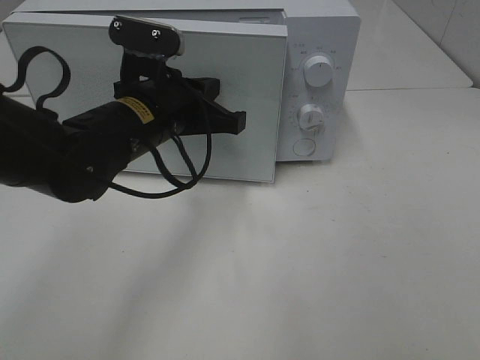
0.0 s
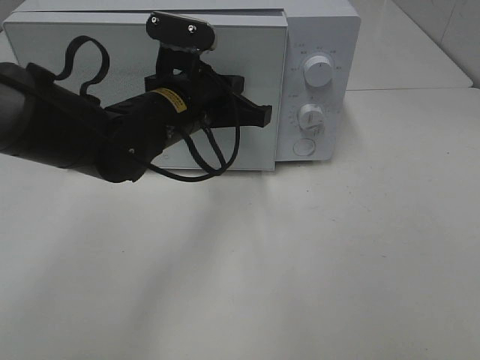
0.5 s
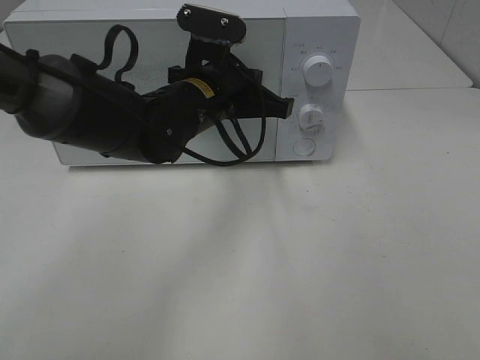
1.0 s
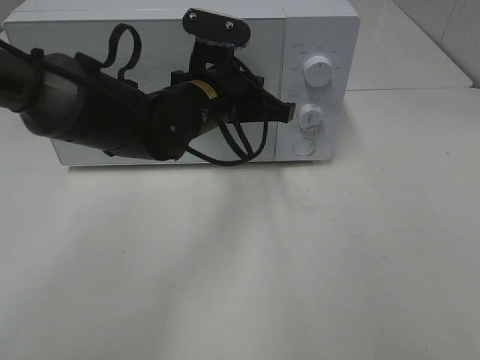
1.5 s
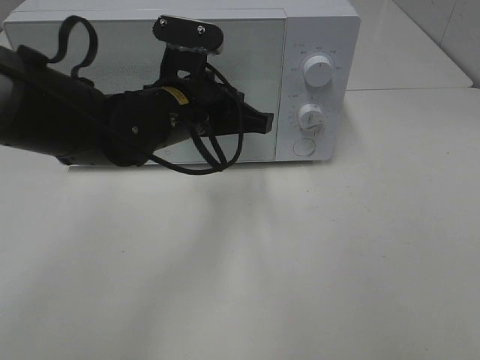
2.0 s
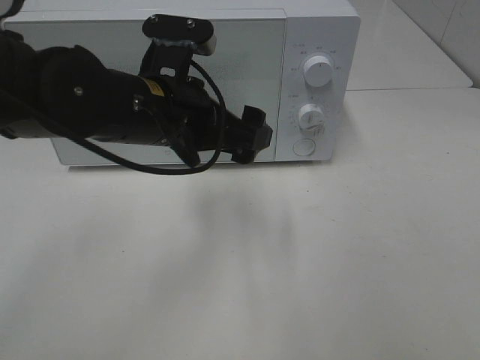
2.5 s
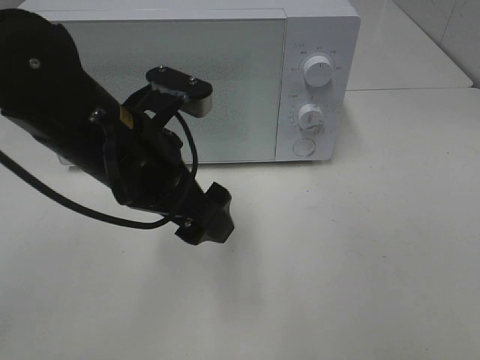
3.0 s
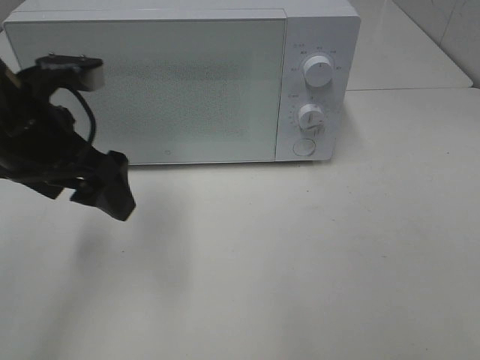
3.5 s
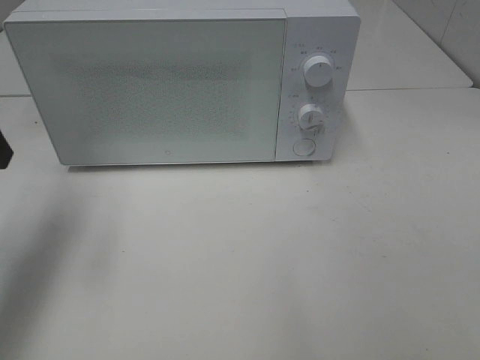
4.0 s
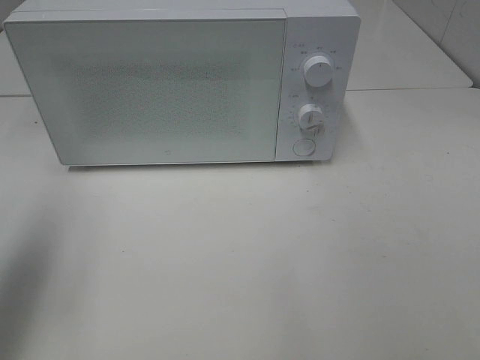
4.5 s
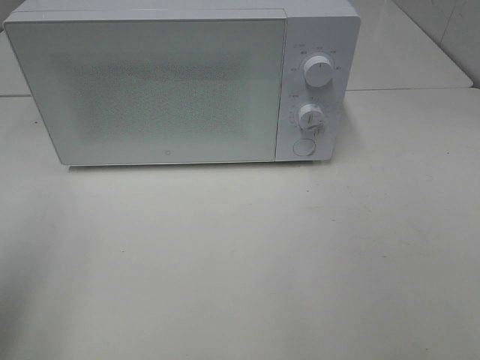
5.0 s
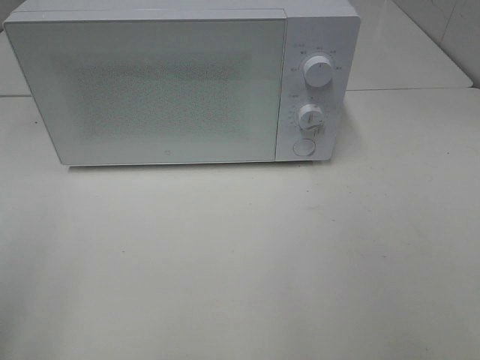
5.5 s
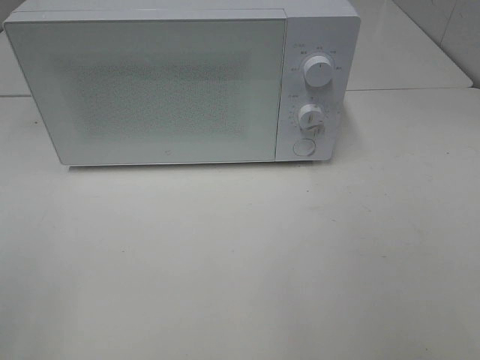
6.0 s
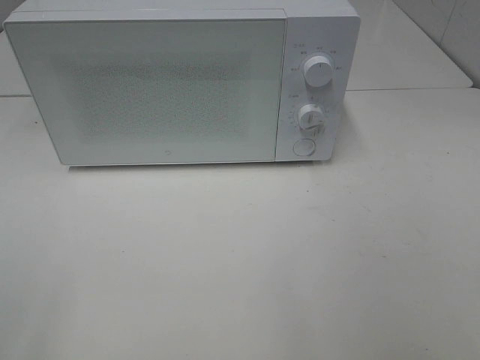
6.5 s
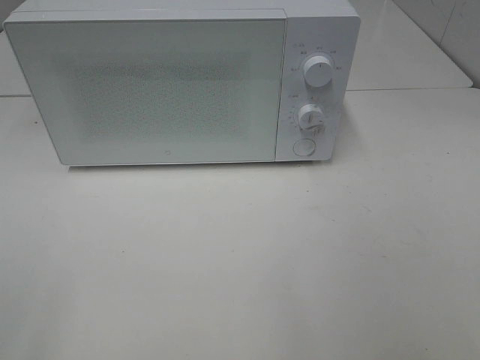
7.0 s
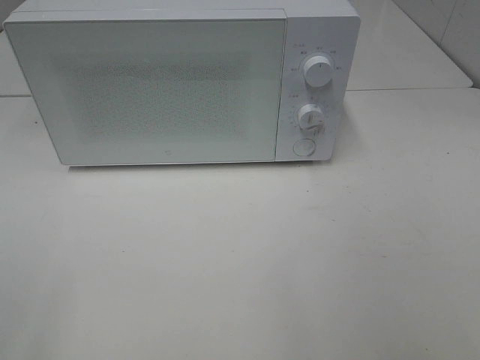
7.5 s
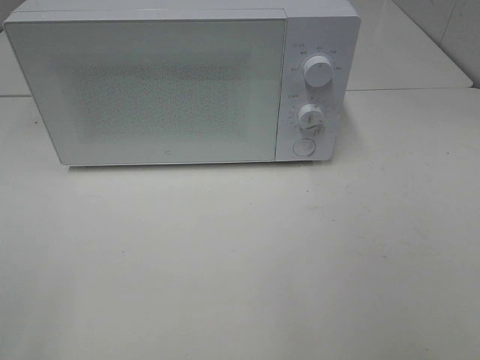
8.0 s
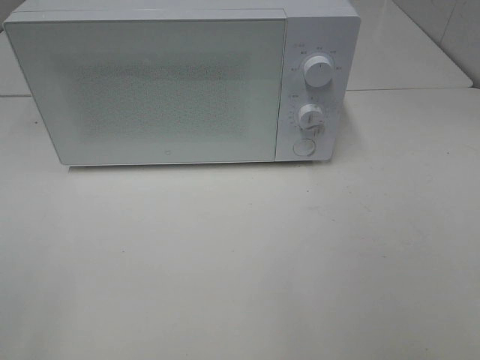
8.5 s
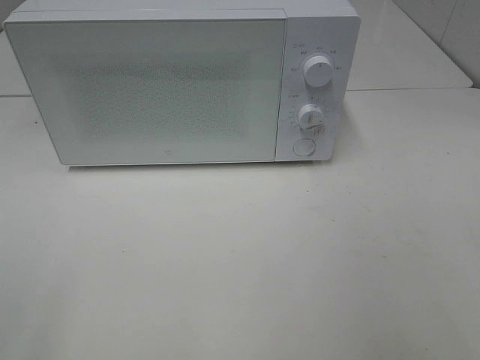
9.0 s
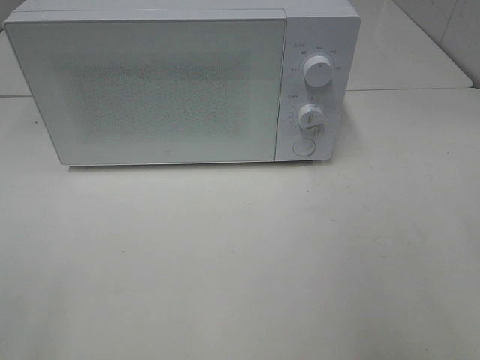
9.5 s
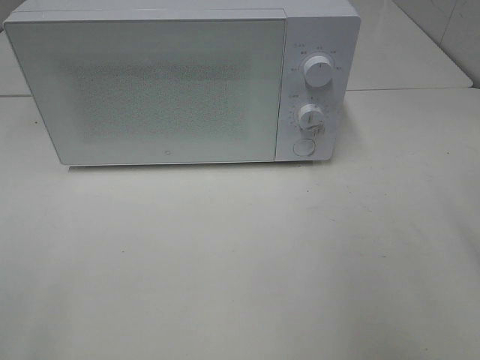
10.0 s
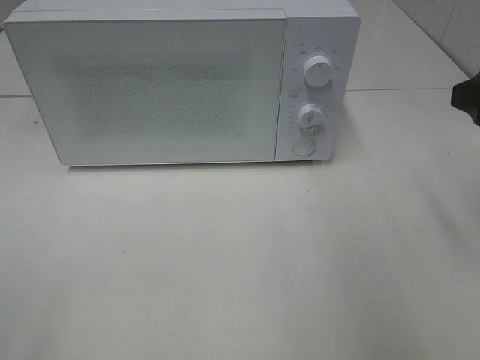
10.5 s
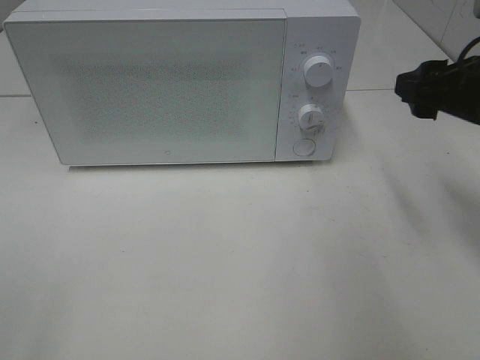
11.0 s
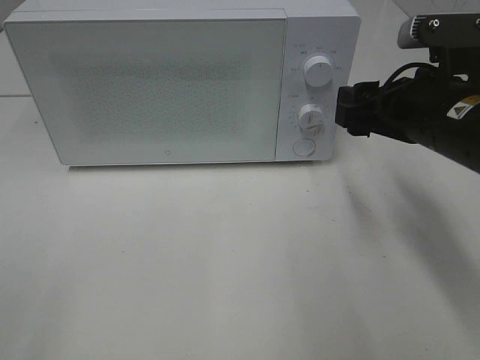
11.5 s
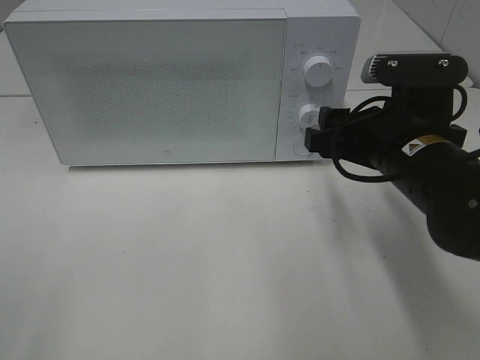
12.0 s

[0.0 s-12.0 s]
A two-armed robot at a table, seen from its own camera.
Task of the whole recording: Heat Sandwich.
Step, 0.0 to 2.0 s: Left hand: close the microwave door.
2.0 to 4.0 s: The left gripper is displaced to the left and upward by some 25 cm, and opens up.
4.0 to 6.0 s: The left gripper moves backward, some 25 cm.
10.0 to 12.0 s: The right gripper moves to the left, downward and forward, roughly 20 cm.

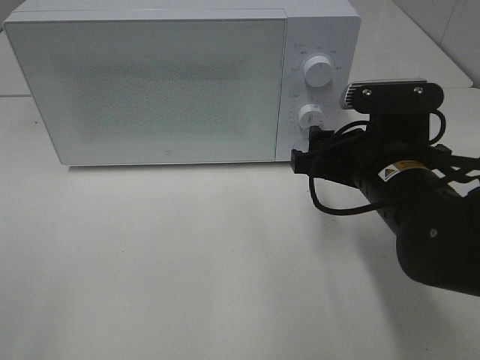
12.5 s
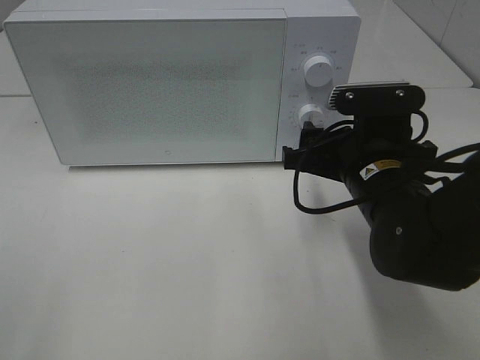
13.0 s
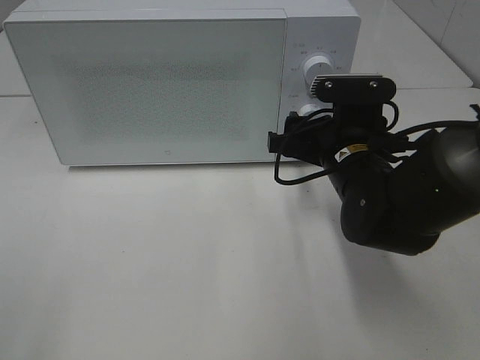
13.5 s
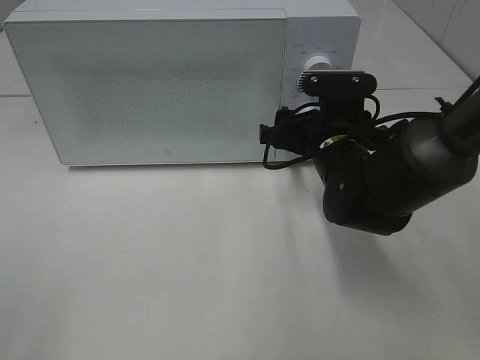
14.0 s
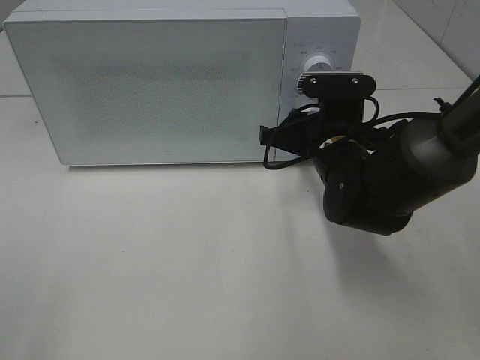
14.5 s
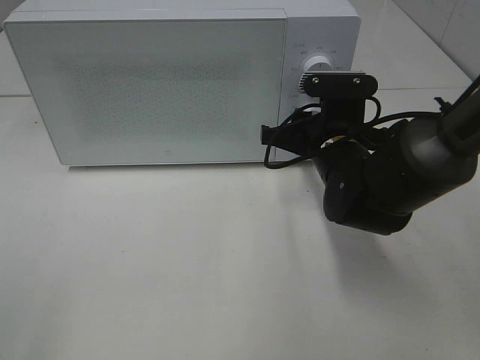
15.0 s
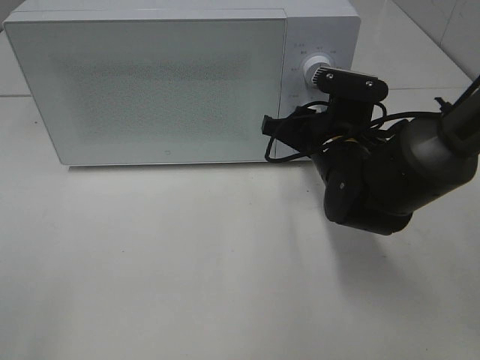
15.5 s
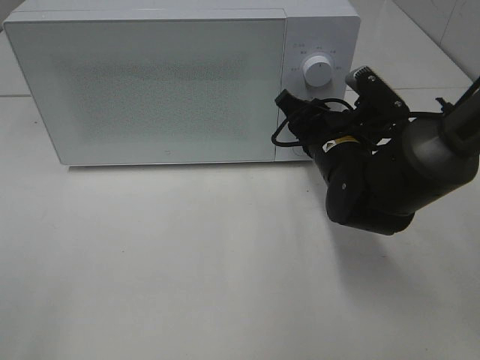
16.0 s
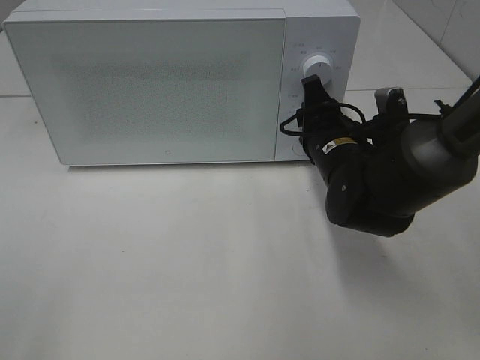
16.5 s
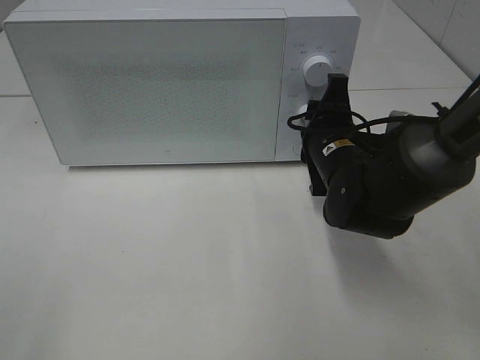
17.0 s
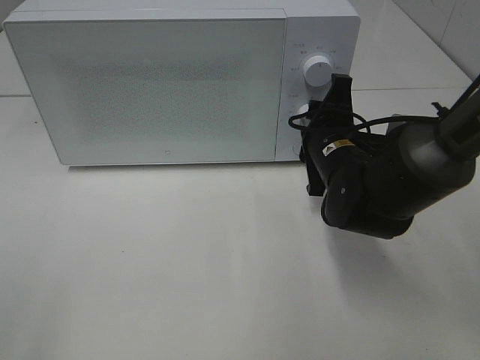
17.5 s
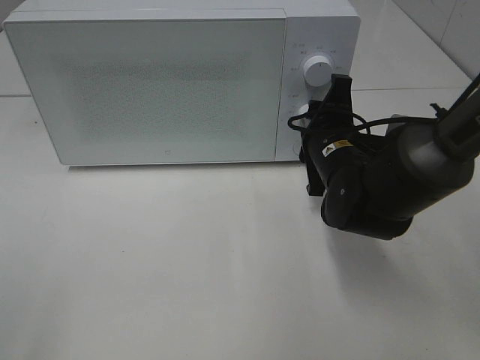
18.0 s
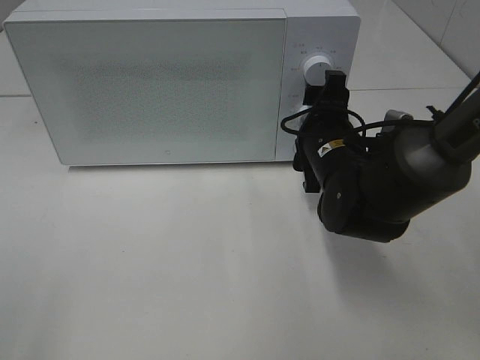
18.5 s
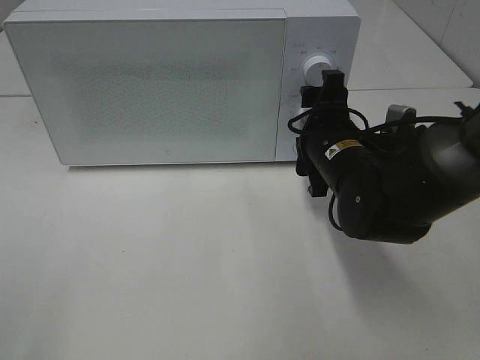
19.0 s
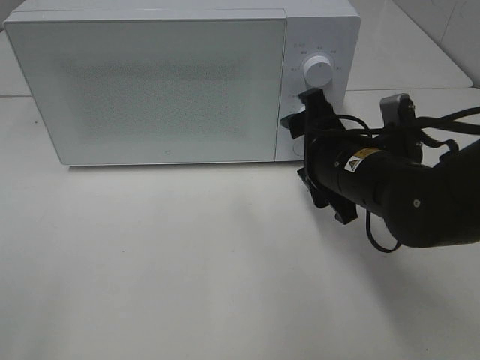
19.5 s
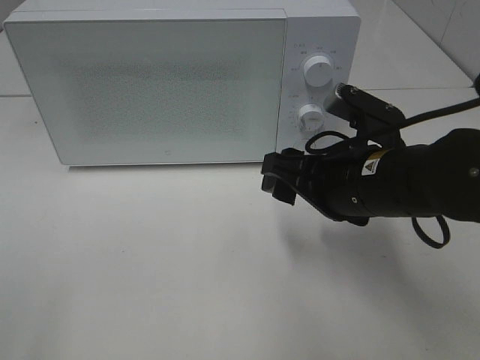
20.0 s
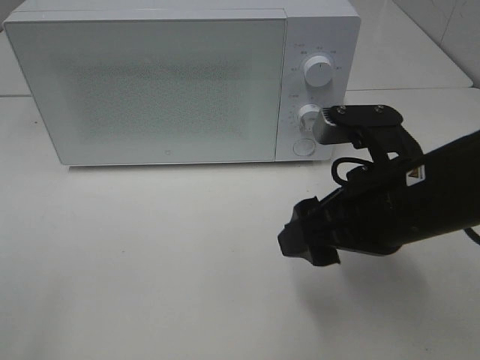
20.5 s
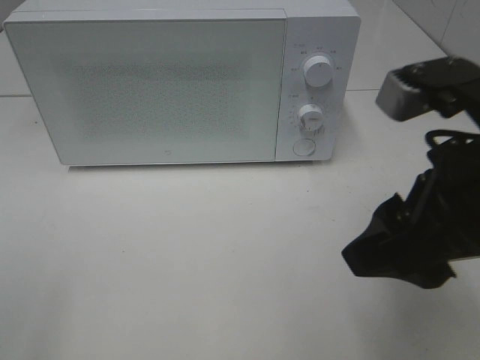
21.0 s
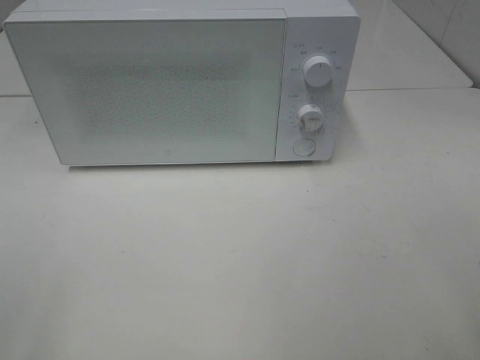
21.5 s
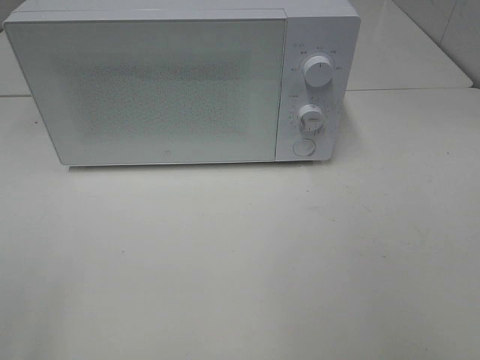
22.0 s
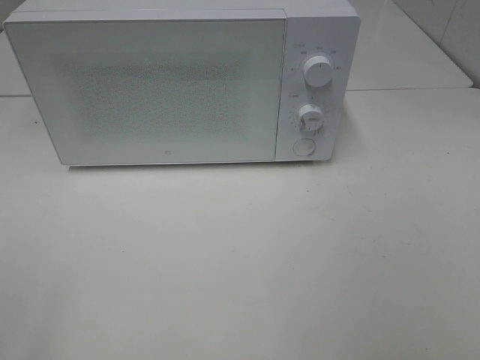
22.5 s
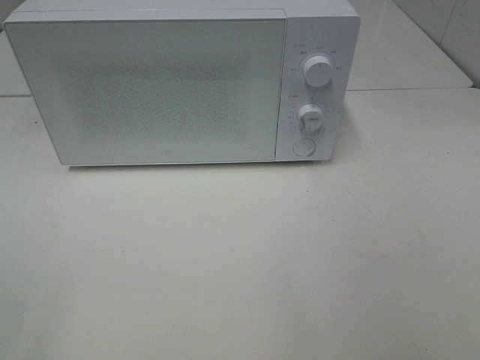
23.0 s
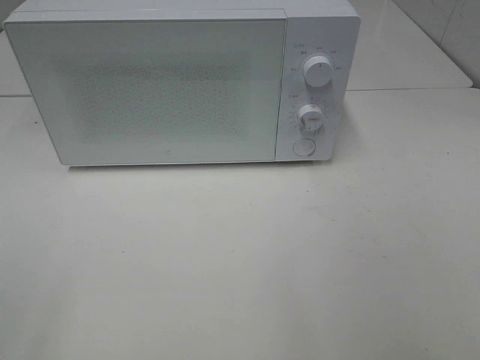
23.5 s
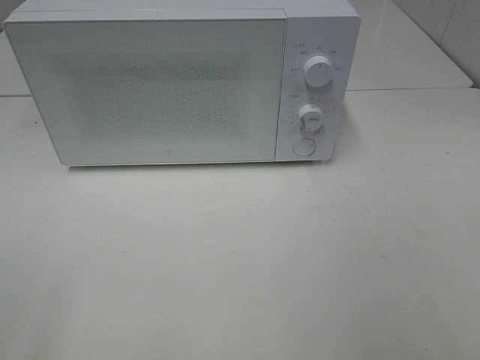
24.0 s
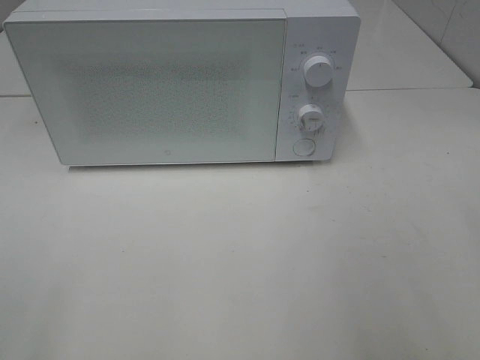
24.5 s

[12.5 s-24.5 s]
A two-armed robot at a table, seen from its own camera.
Task of the whole recording: Heat Sandwich.
Step, 12.5 to 19.0 s: Right hand: twist timer button.
12.5 to 14.5 s: The right gripper moves forward, about 10 cm.
16.5 to 18.5 s: The right gripper opens up.
18.5 to 20.5 s: The right gripper moves backward and upward, about 15 cm.
20.5 to 22.5 s: The right gripper is displaced backward, to the right and upward by roughly 30 cm.

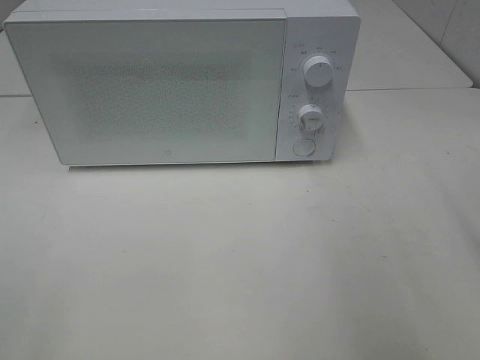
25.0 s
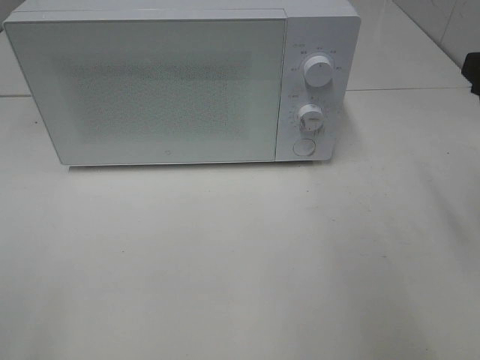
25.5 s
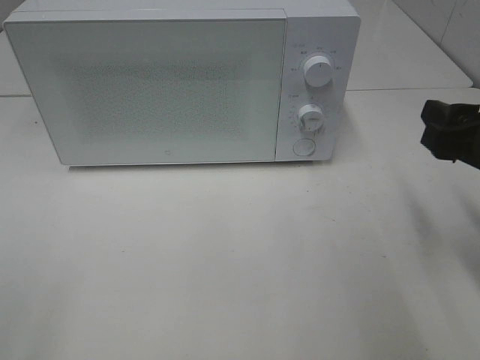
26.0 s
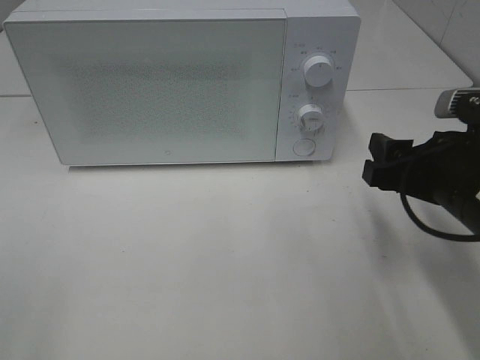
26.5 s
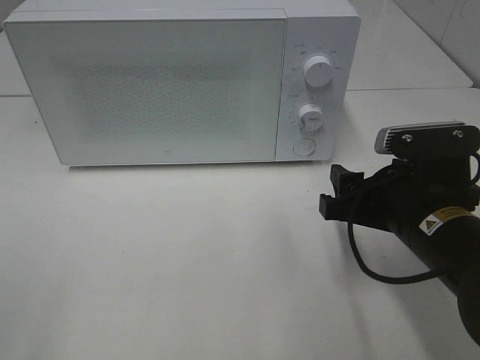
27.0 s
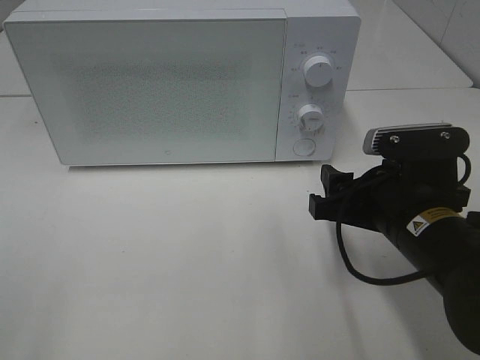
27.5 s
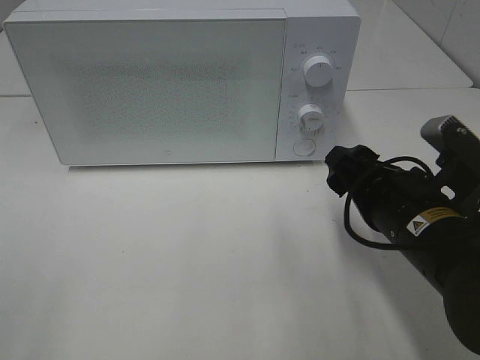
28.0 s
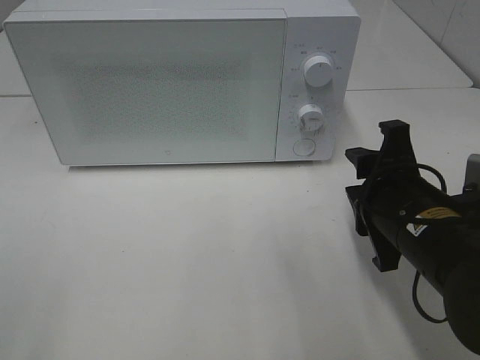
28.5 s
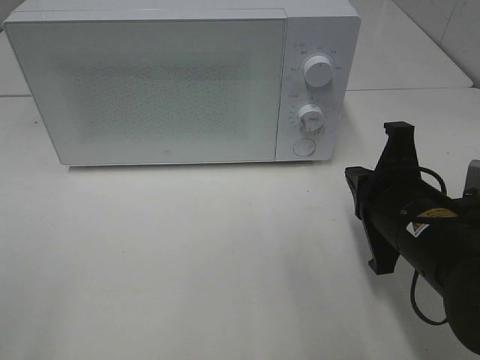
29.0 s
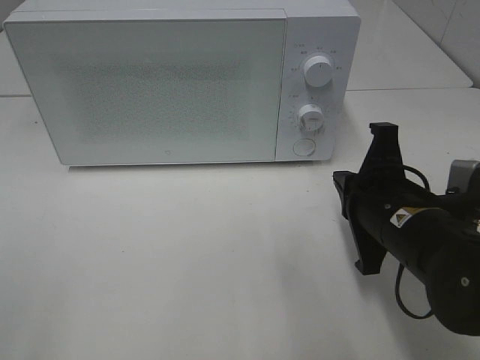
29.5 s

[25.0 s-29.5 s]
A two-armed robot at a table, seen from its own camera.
Task of the whole recording: Heat Sandwich.
25.0 to 27.0 s: The right gripper shifts some 20 cm downward and to the left.
27.0 to 29.5 s: The right gripper closes its fingers.
